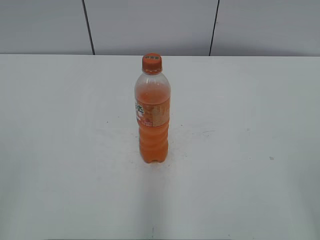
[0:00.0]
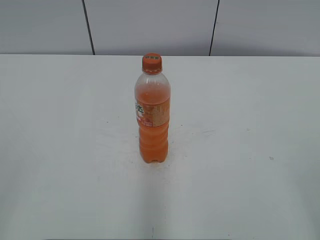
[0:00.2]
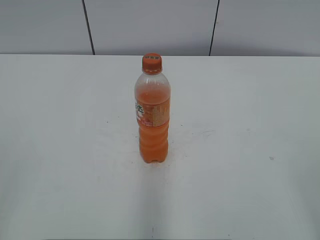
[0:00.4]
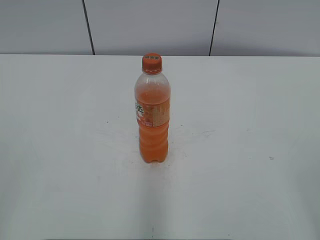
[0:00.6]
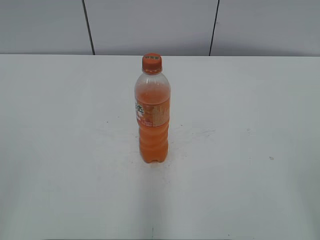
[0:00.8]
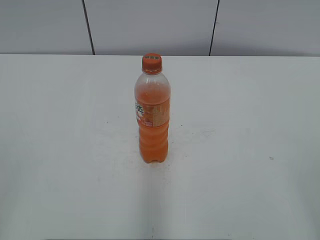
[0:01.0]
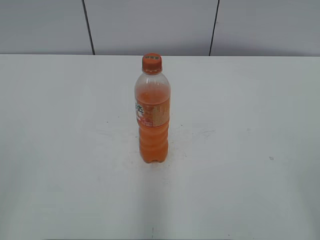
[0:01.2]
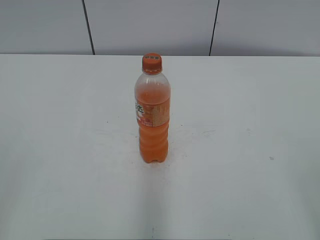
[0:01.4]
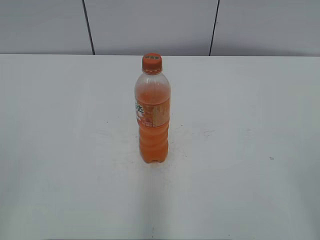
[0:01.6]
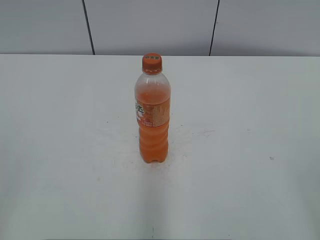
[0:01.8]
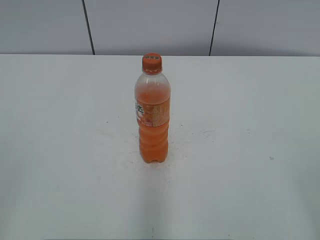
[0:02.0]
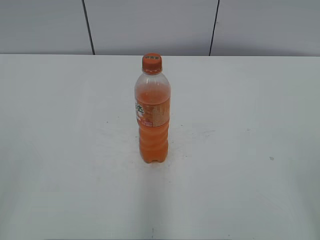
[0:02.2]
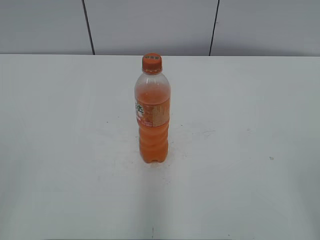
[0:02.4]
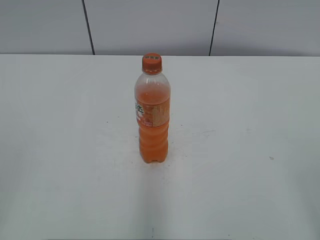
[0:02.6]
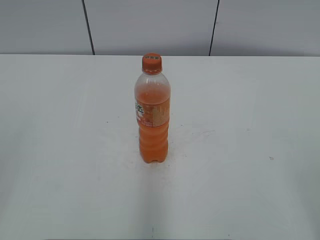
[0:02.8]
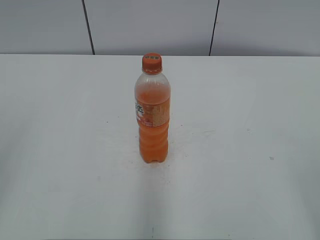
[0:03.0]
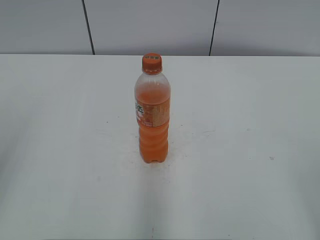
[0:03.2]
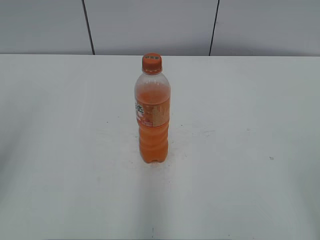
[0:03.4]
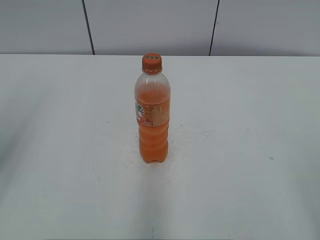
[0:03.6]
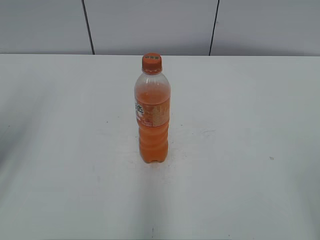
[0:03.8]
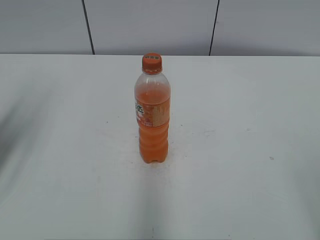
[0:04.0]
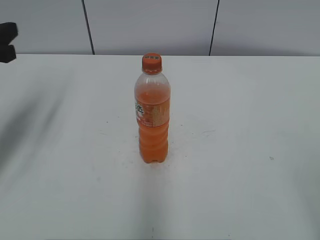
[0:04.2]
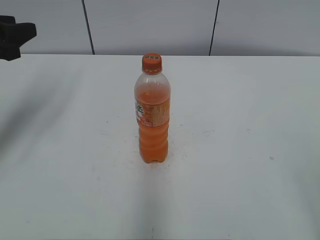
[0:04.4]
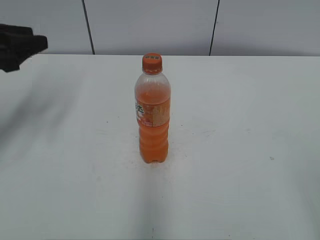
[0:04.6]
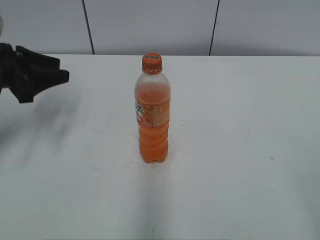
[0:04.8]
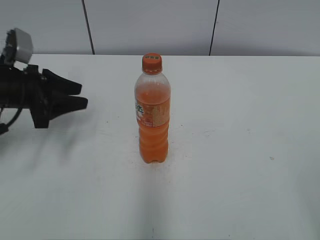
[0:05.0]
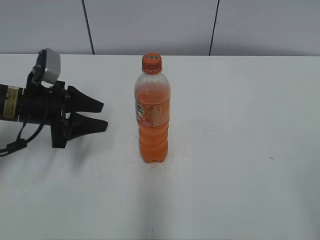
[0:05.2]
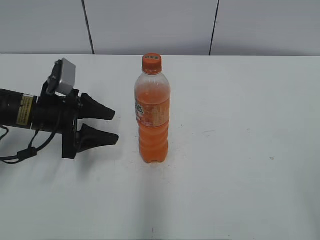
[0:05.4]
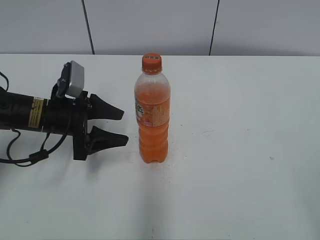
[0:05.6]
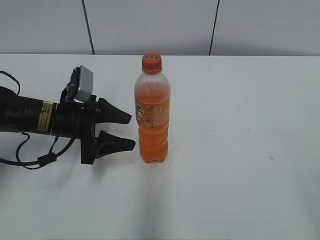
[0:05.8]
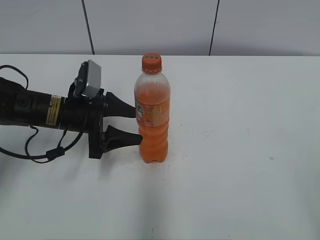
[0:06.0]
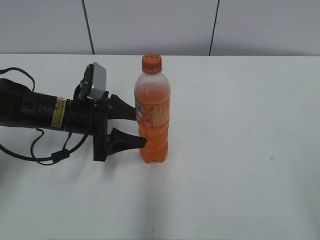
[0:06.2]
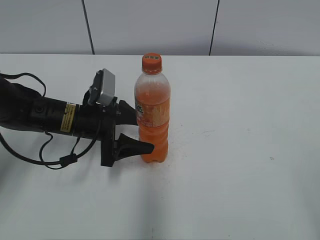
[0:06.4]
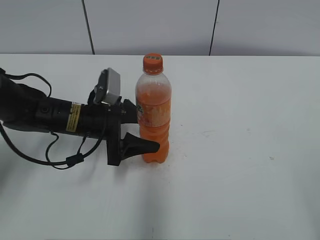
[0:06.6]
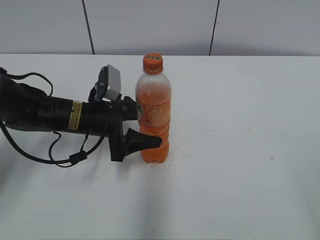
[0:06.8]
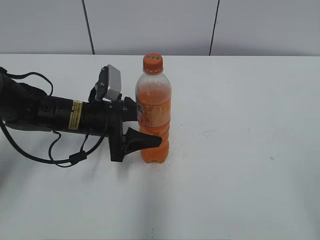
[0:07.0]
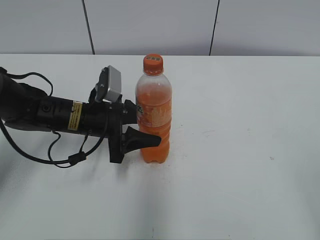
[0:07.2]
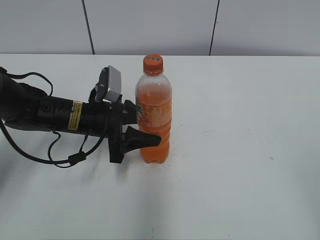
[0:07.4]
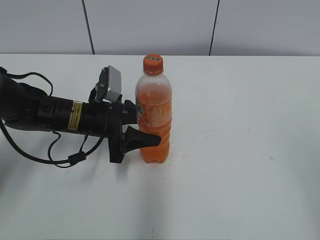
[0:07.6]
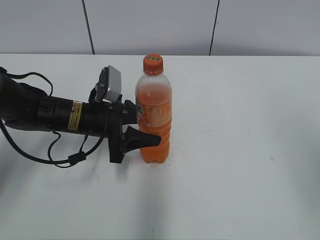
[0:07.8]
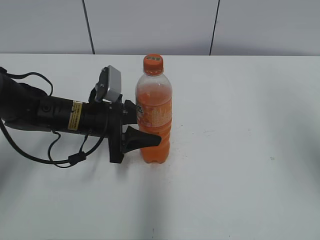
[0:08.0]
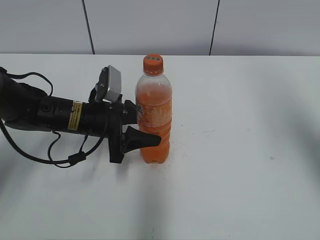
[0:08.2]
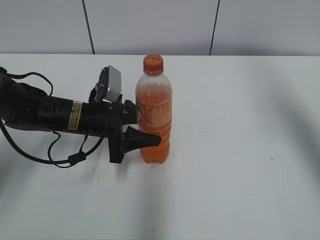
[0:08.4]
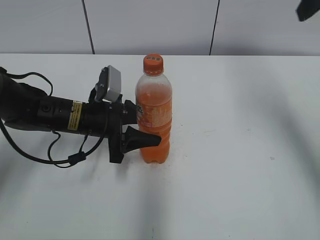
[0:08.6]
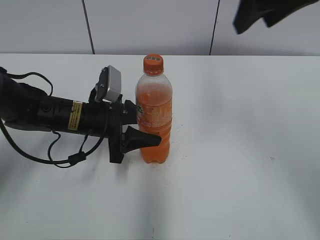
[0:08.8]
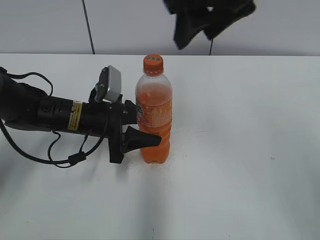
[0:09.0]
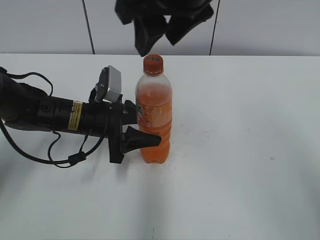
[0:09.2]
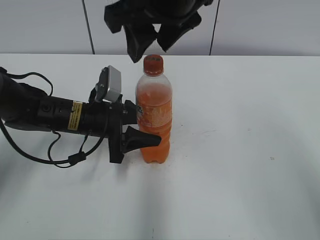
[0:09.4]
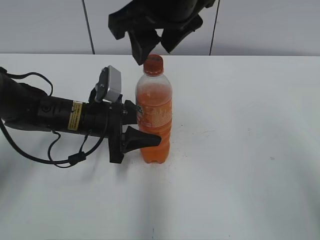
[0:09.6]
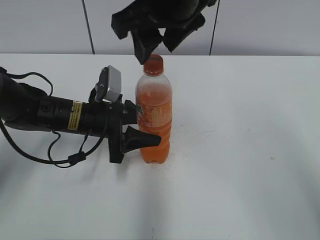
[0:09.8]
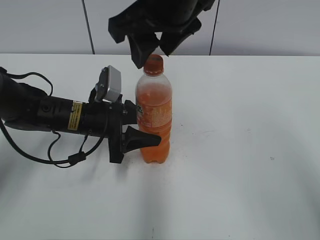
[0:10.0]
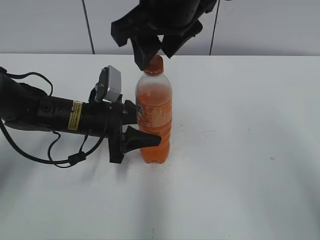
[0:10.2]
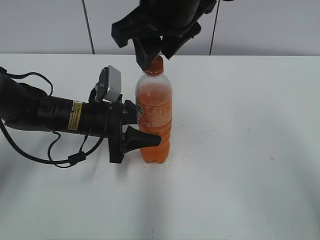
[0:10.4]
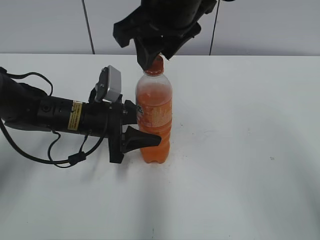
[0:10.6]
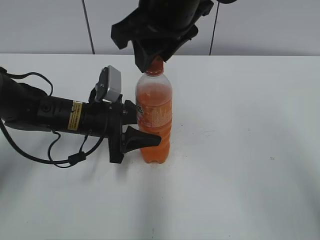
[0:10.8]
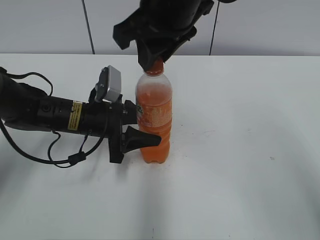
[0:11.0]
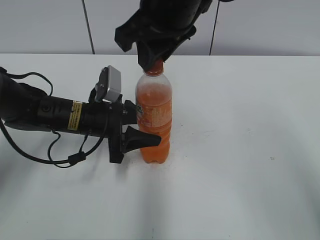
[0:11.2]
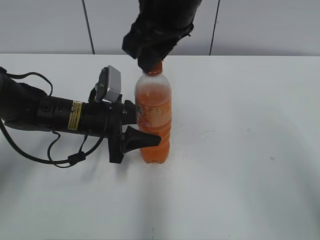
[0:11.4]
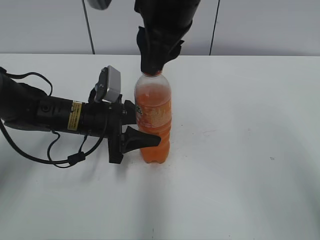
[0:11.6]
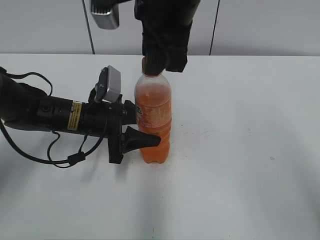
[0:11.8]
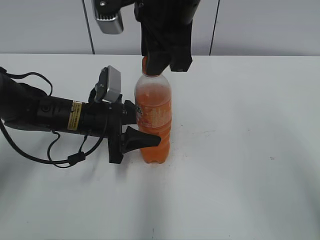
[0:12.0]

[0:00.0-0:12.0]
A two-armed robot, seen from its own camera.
Step, 0:00.0 to 0:07.6: Grab the Mirinda with the left hand.
0:03.0 to 0:04.4: The left gripper moves forward, roughly 25 cm, and closes its fingers.
0:04.4 to 0:06.0: The left gripper shifts roughly 20 cm downward and to the right, and opens up.
0:06.0 to 0:07.6: The left gripper closes.
0:07.6 to 0:09.0: The right gripper shifts some 35 cm forward and to the left.
0:09.0 to 0:10.4: The right gripper shifts roughly 5 cm to the left.

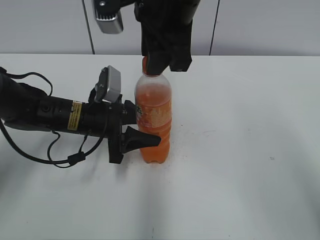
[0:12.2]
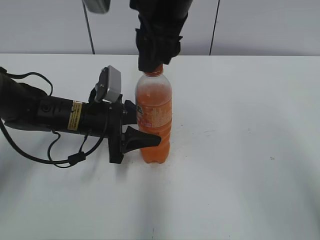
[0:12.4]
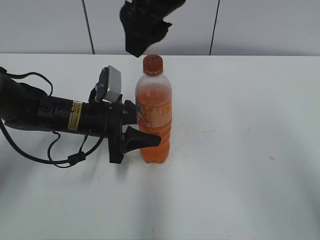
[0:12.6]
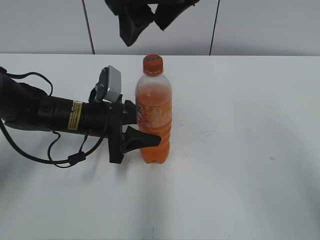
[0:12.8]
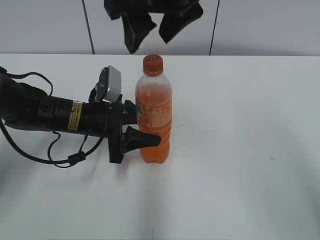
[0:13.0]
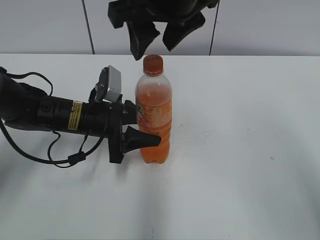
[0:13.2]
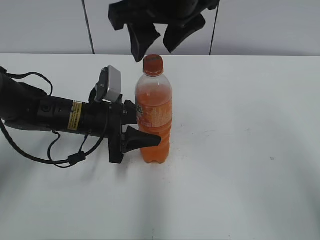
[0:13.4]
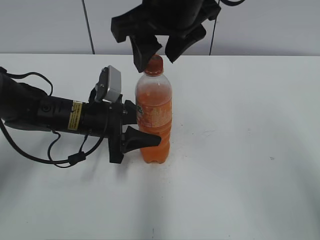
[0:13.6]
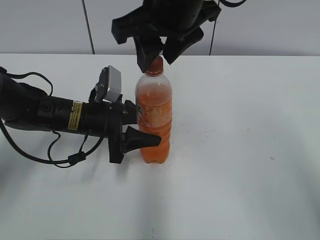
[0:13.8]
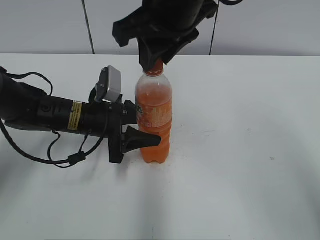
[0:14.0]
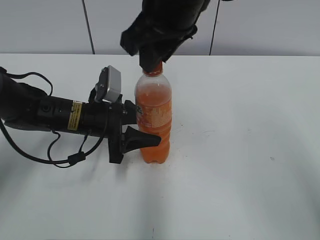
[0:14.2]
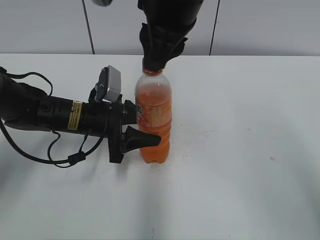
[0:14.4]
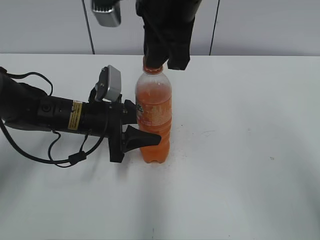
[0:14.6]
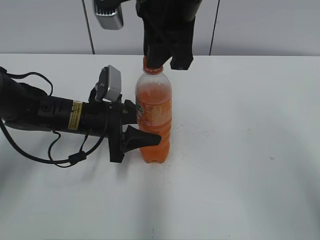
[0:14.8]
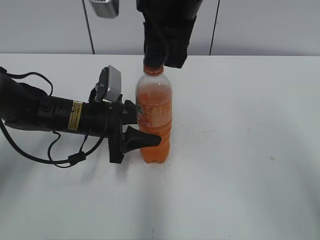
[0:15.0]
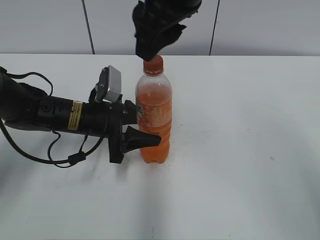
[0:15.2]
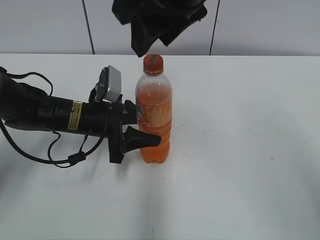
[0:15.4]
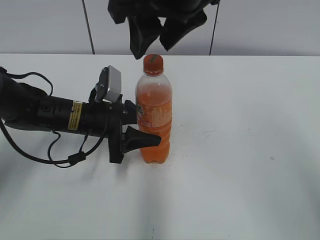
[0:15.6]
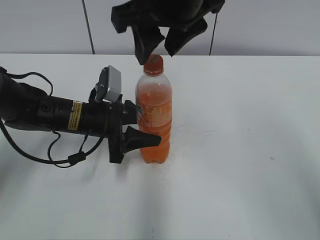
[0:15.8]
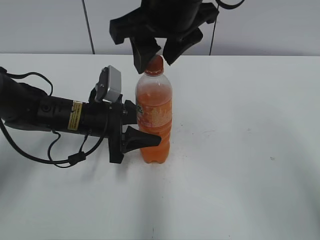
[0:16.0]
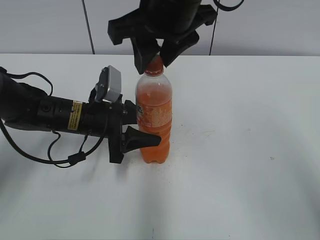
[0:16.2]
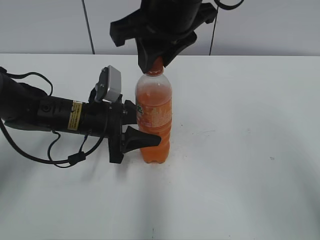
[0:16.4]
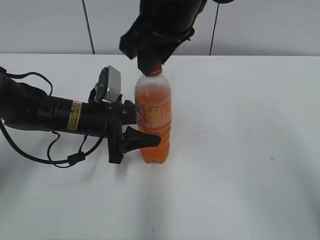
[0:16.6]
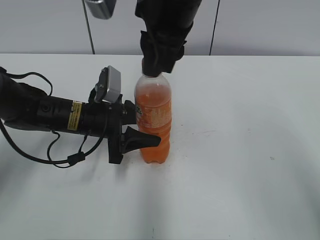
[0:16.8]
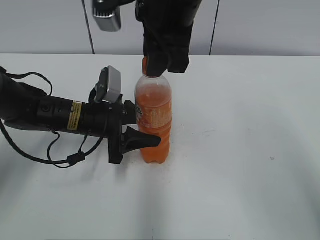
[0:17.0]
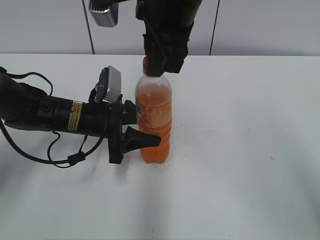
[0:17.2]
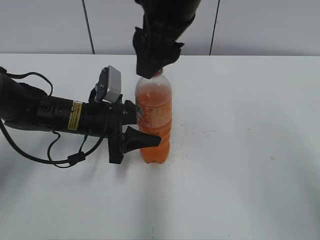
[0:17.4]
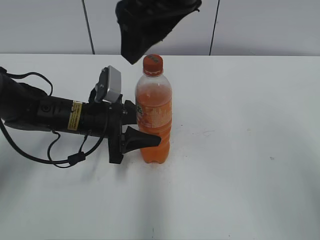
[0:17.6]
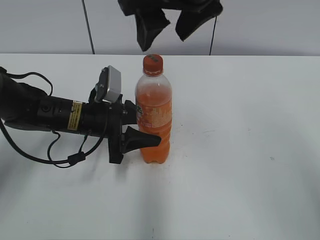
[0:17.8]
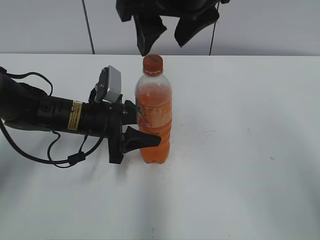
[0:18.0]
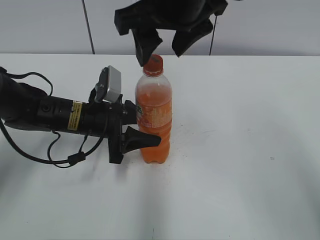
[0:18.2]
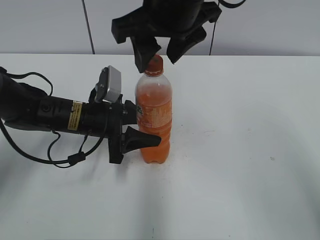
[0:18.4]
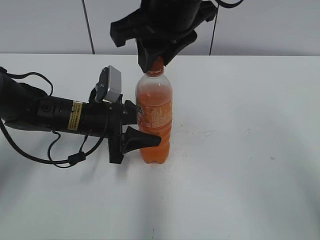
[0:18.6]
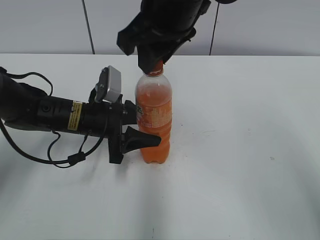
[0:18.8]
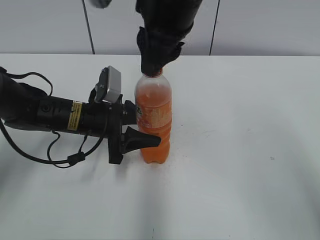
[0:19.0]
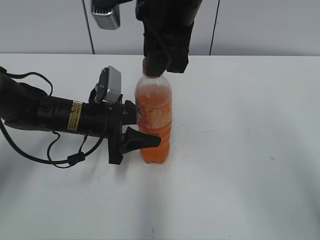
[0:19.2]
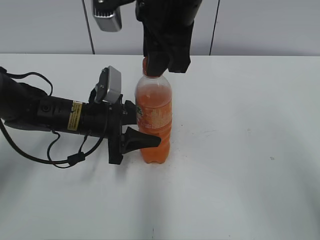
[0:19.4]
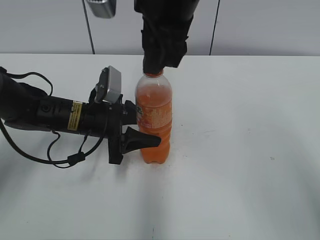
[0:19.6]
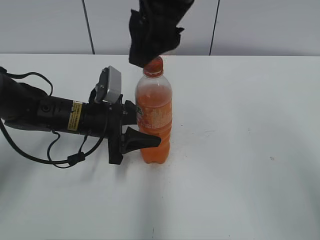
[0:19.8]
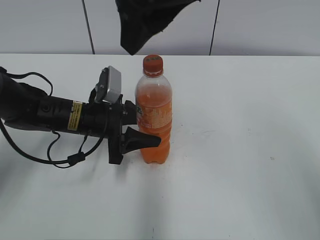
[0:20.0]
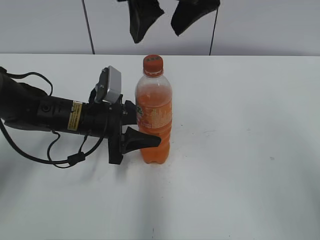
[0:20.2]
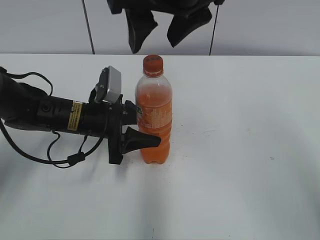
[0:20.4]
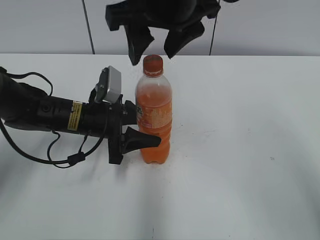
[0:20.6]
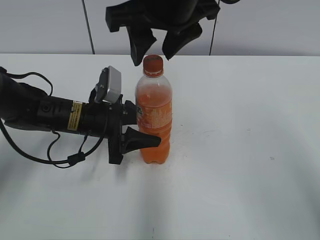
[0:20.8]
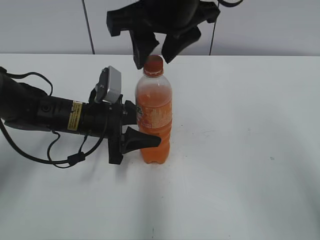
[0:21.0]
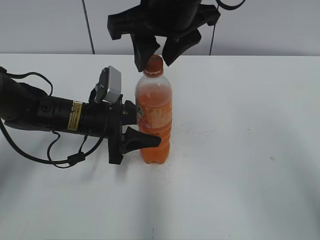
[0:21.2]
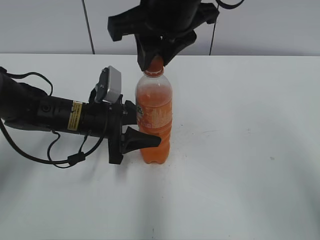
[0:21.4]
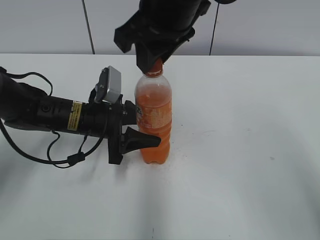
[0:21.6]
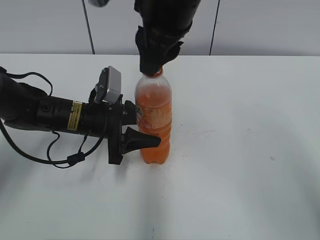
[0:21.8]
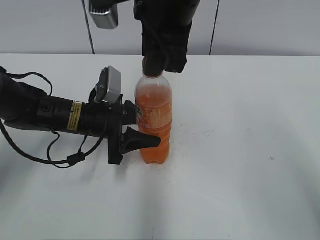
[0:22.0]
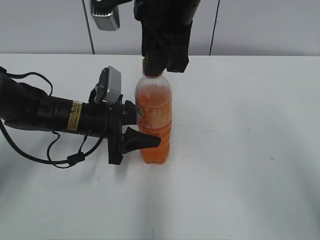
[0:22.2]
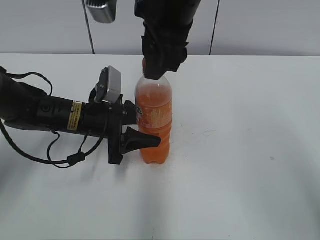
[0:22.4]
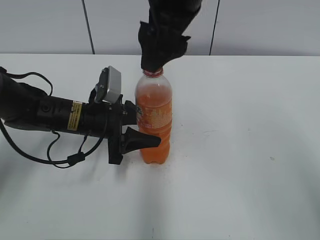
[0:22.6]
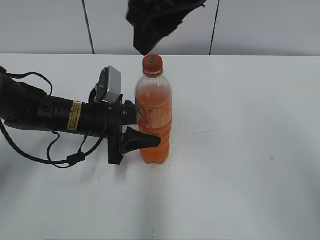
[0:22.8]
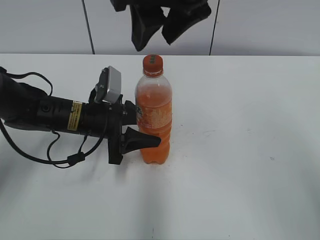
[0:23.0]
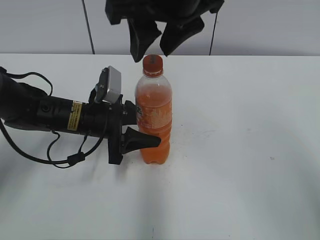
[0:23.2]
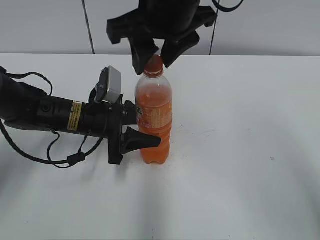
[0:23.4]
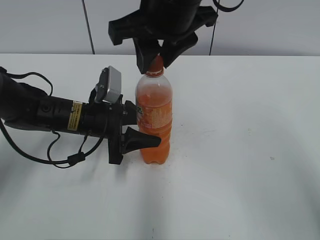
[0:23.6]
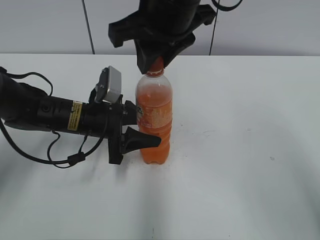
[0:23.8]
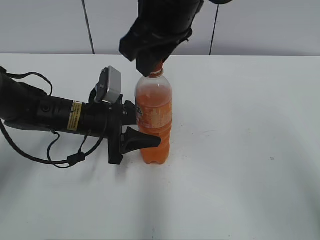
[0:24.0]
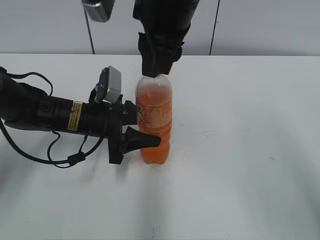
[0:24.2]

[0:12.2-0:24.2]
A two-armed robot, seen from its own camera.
0:12.2 to 0:13.8: The right gripper opens, then closes once more.
0:16.6 to 0:18.2: The right gripper opens.
0:18.2 to 0:19.8: The right gripper closes and opens again.
0:19.8 to 0:21.2: The right gripper closes its fingers.
0:21.2 to 0:22.6: The right gripper opens up.
0:22.6 to 0:24.2: The right gripper closes up.
